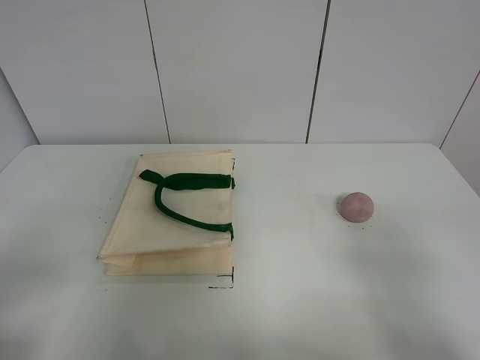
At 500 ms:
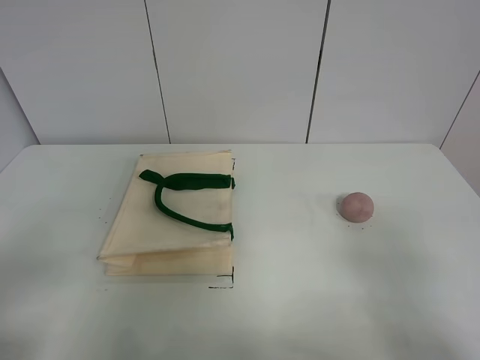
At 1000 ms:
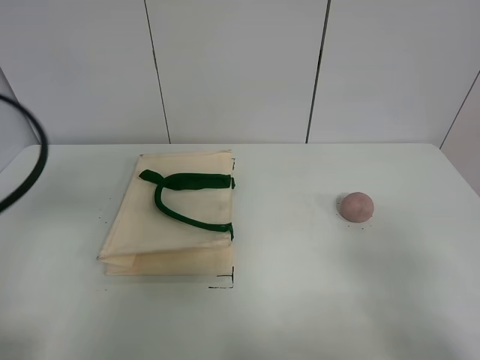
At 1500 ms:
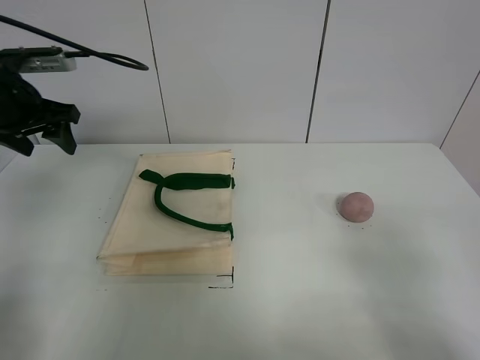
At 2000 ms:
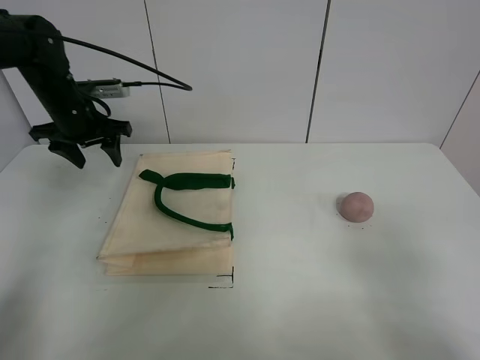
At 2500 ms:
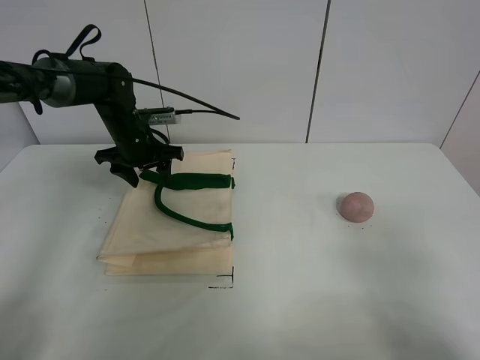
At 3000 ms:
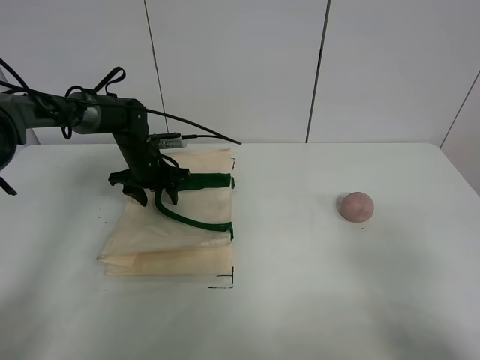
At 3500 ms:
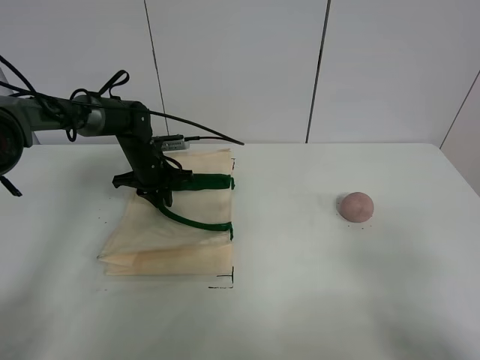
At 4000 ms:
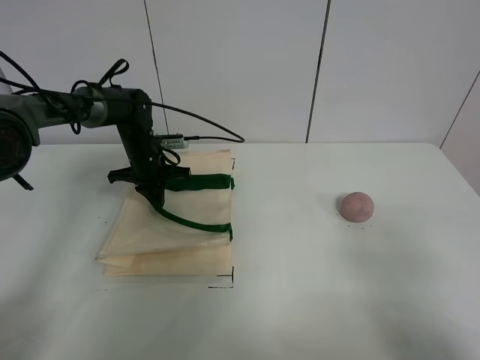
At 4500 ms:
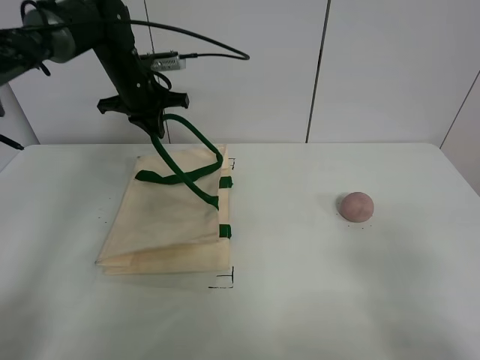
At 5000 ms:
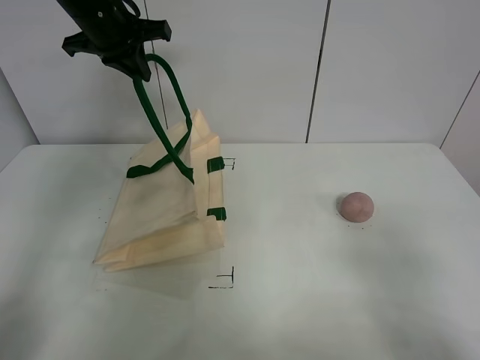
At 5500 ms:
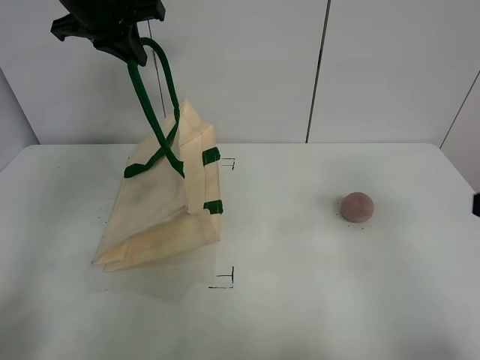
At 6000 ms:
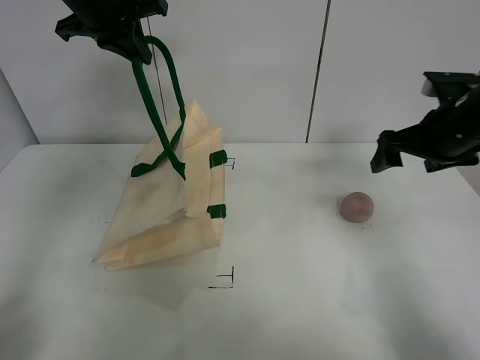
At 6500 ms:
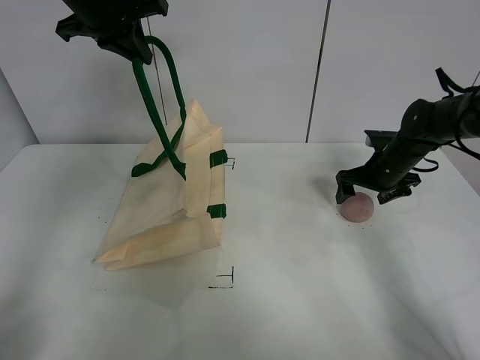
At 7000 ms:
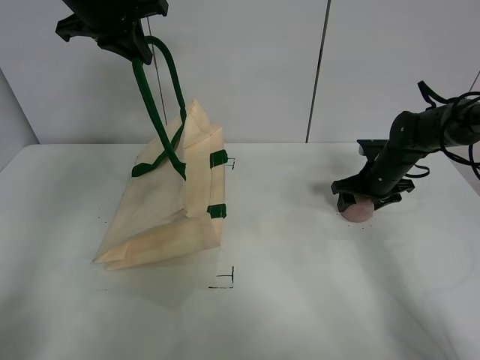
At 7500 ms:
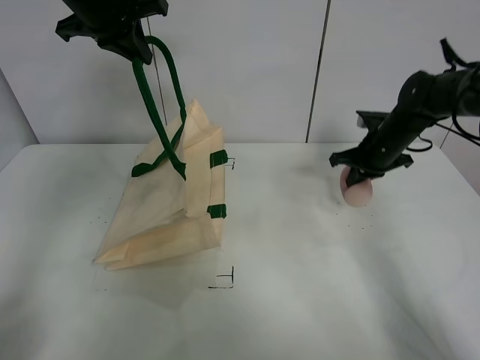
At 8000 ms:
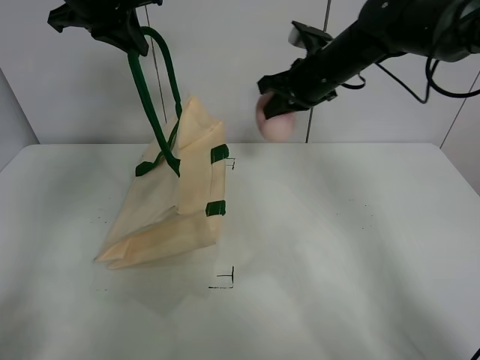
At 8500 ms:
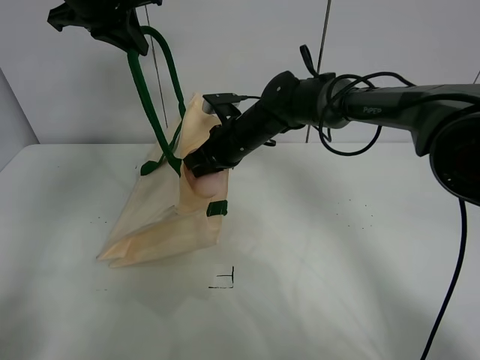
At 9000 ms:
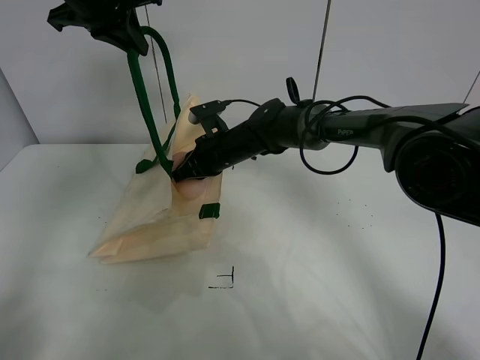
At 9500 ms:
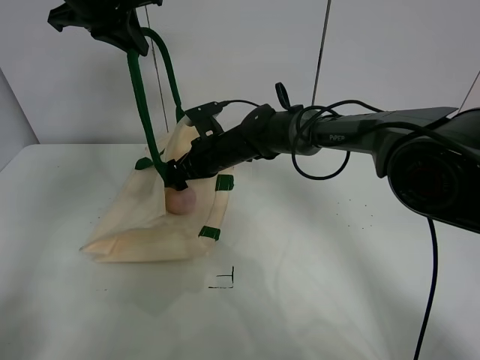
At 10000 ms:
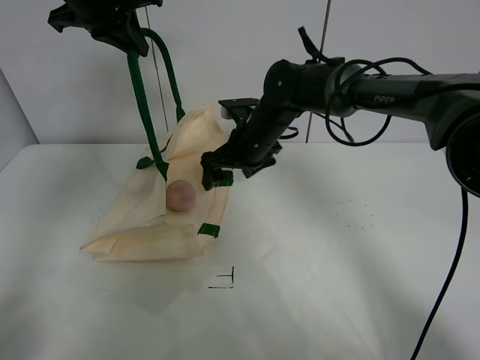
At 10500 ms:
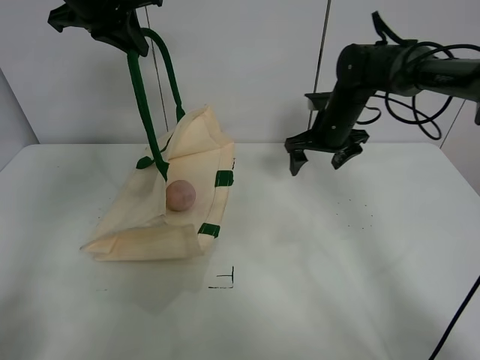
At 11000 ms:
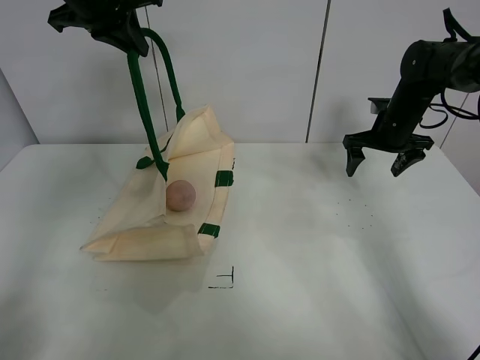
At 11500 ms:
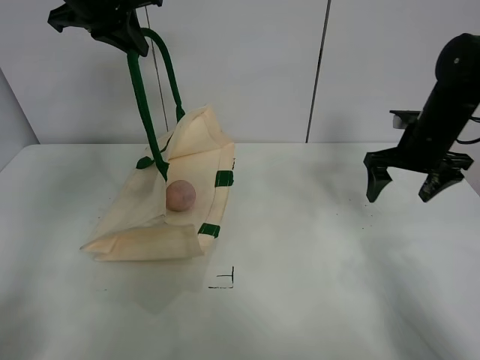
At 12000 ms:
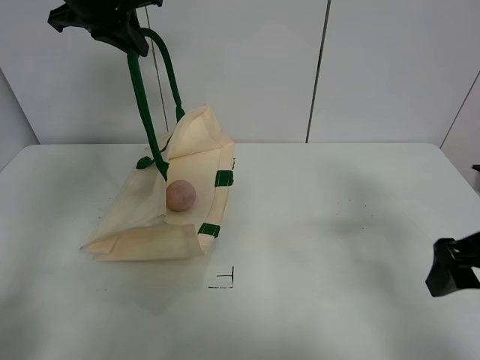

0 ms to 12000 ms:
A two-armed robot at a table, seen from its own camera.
Task of the whole recording: open the white linen bag and put the peach in the bag.
Step, 0 ms to 5000 ms: Lift the handbag with left gripper.
Step, 5500 ms to 7000 ms: Grasp the peach with right gripper.
Step, 7500 ms to 9500 ms: Place the peach in the handbag with right gripper.
0 ms to 2000 ms: The left gripper shifts about 40 cm forward.
2000 ms to 4000 ms: The left gripper is displaced downward and to the right by some 15 cm, and closes.
4000 ms to 6000 ms: The right gripper is displaced forward by about 30 cm. Meanwhile the left gripper travels upward by roughly 30 cm.
6000 ms to 8000 ms: The right gripper is displaced to the left and forward by about 20 cm, reaches approximately 15 cm downward, then returns, and closes.
8000 ms to 10000 ms: The right gripper moves downward and to the left, approximately 15 cm, and opens up.
10000 ms to 12000 ms: The right gripper is displaced to the right and backward by roughly 35 cm.

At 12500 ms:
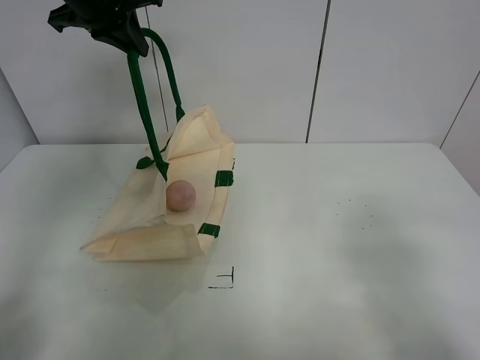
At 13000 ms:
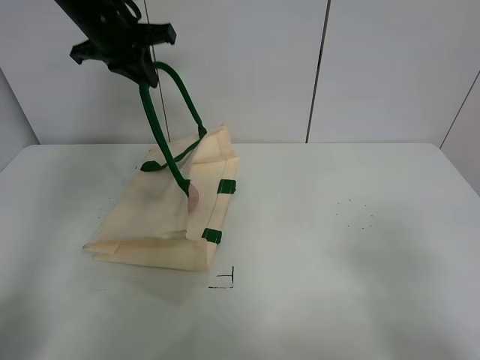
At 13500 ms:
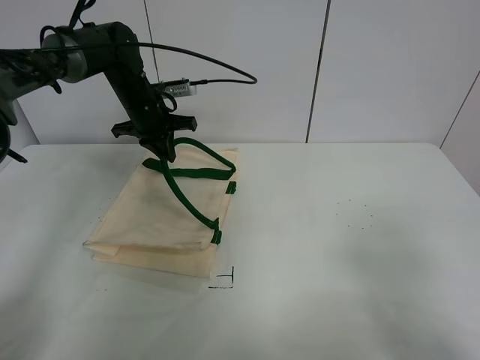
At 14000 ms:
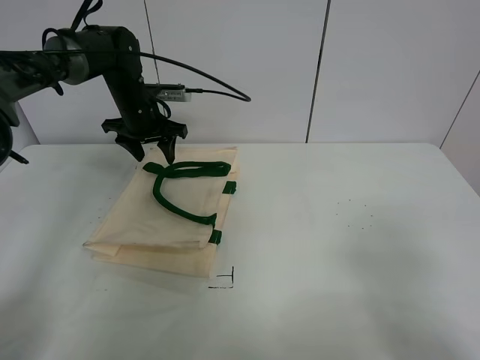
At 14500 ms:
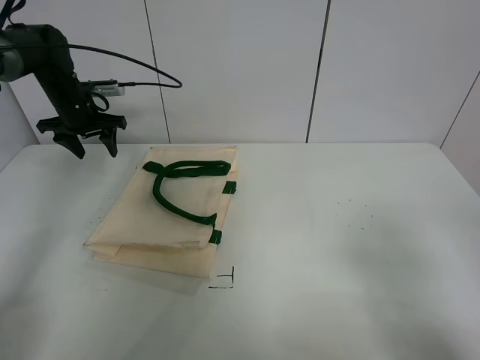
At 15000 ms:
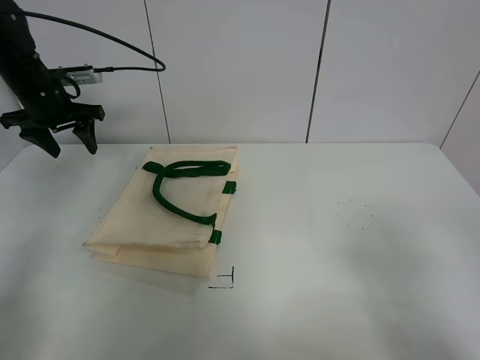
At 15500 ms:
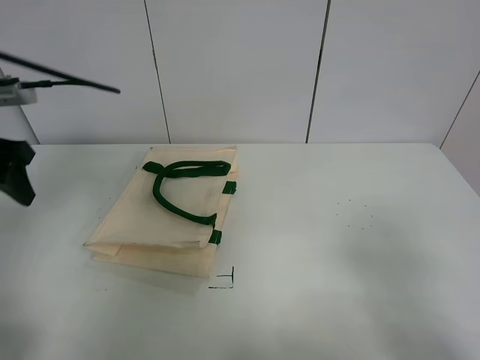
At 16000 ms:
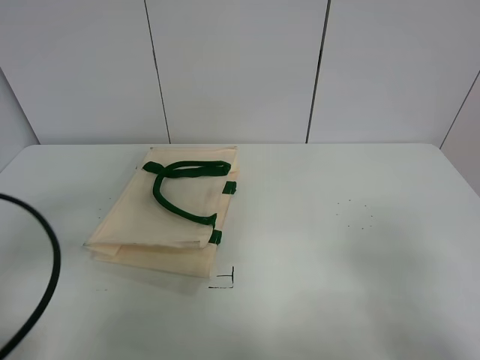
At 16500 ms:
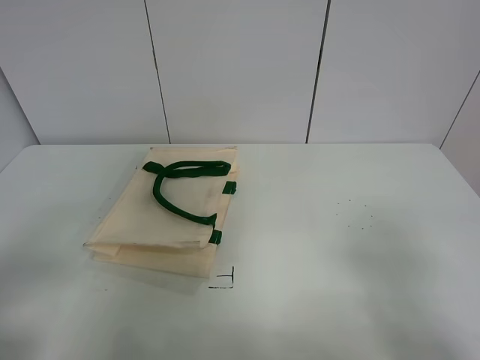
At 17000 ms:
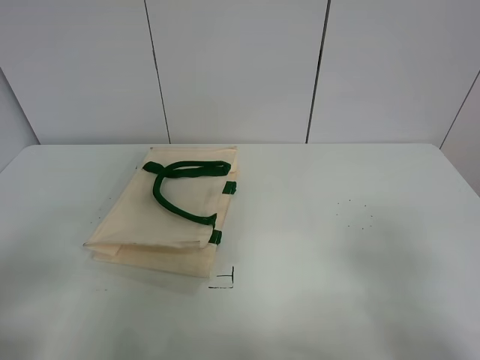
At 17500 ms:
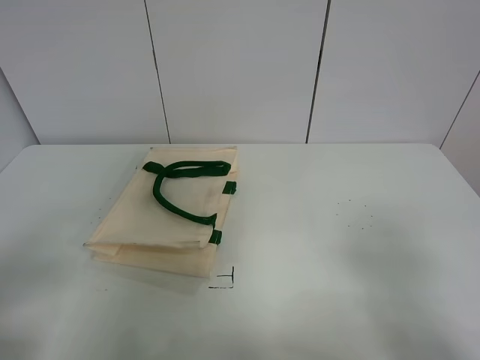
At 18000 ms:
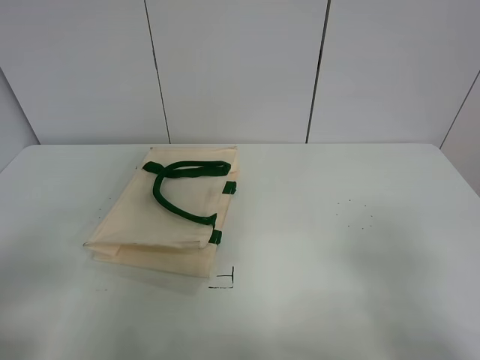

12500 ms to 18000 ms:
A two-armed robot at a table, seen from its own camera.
Task of the whole recording: open the white linen bag and put the peach in the bag.
12500 ms to 14500 ms: The left gripper moves downward, to the left and forward, about 25 cm, and opens up.
14500 ms to 16000 ms: The left gripper heads backward, covering some 40 cm.
16000 ms to 18000 ms: The left gripper moves backward, some 10 cm.
